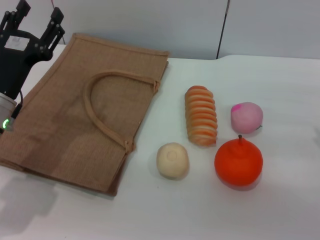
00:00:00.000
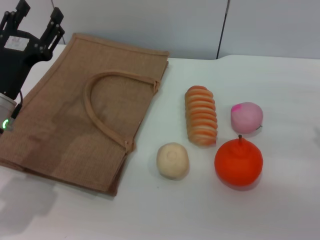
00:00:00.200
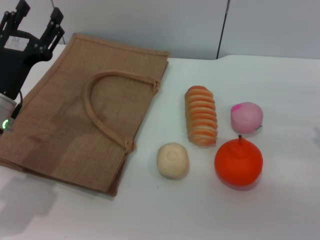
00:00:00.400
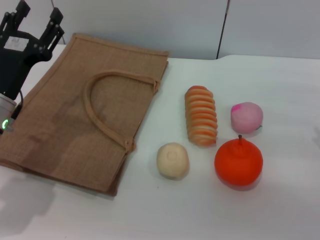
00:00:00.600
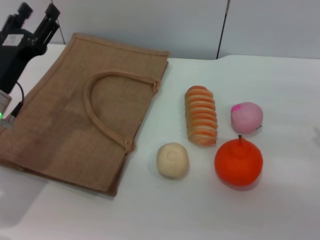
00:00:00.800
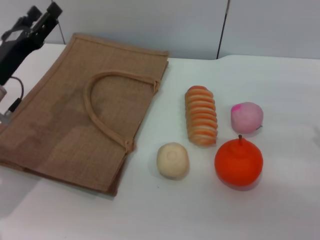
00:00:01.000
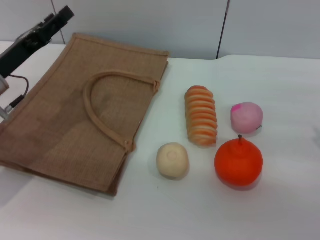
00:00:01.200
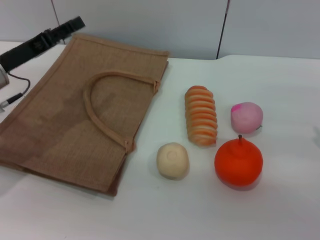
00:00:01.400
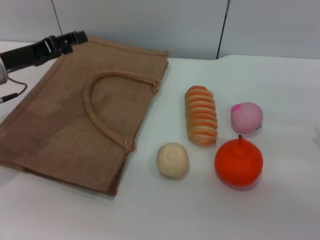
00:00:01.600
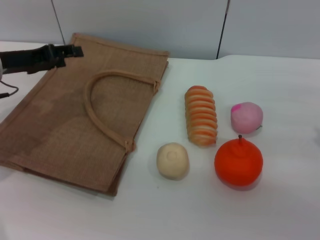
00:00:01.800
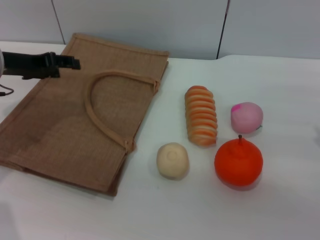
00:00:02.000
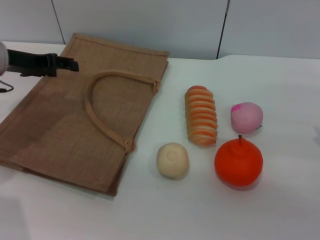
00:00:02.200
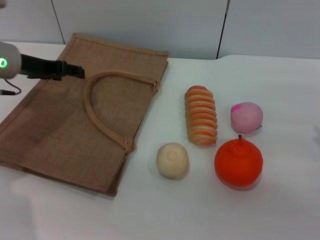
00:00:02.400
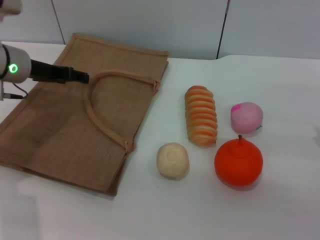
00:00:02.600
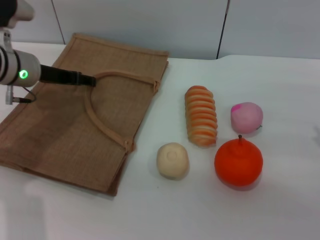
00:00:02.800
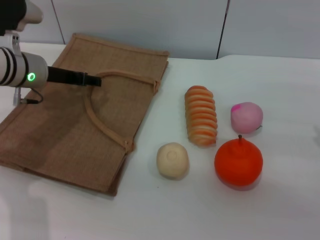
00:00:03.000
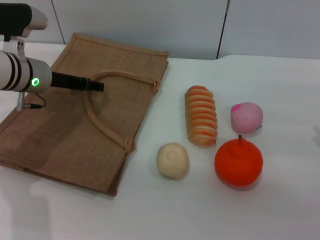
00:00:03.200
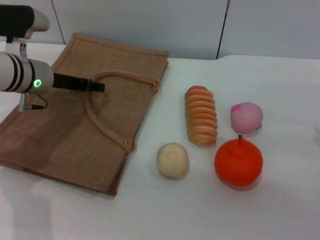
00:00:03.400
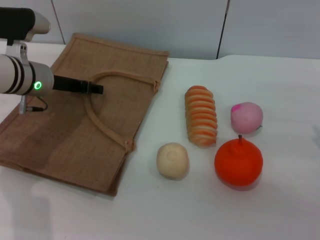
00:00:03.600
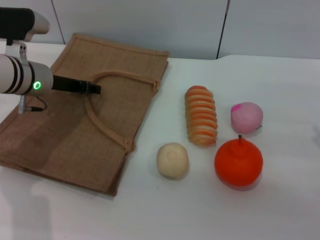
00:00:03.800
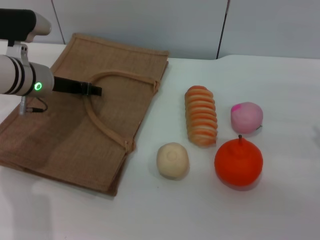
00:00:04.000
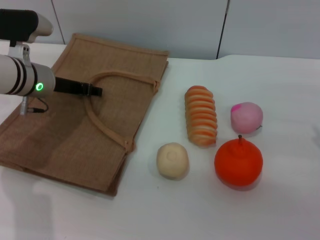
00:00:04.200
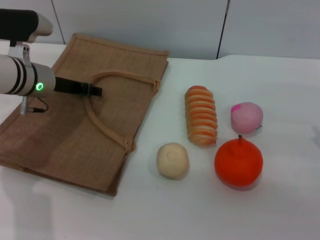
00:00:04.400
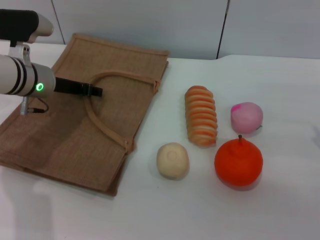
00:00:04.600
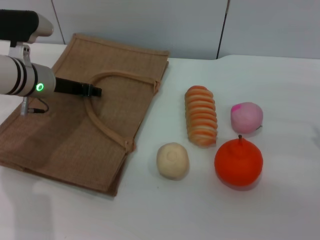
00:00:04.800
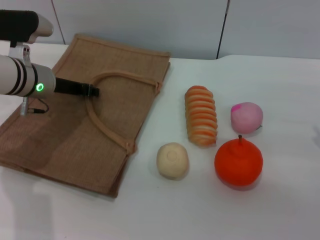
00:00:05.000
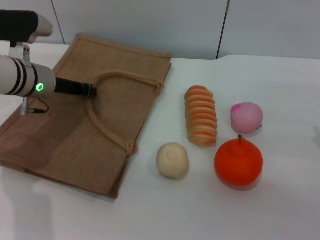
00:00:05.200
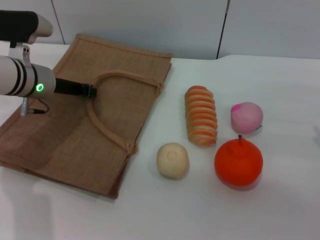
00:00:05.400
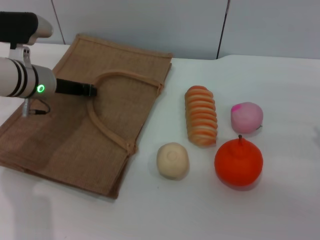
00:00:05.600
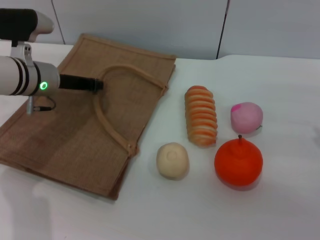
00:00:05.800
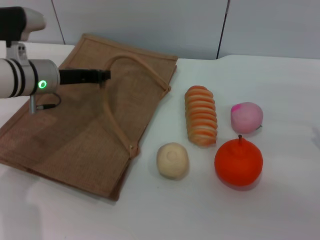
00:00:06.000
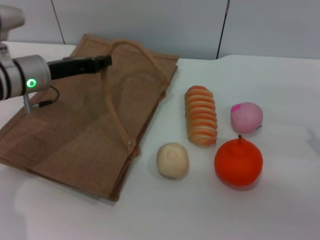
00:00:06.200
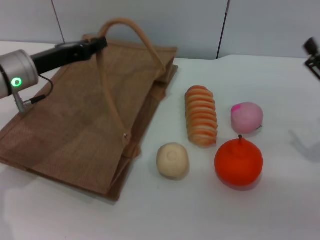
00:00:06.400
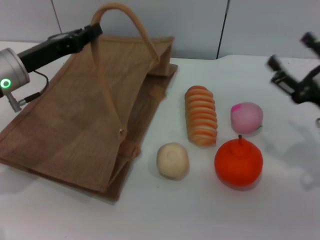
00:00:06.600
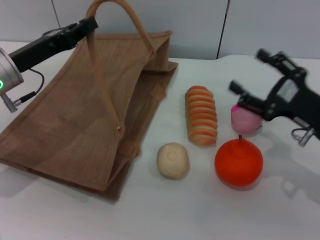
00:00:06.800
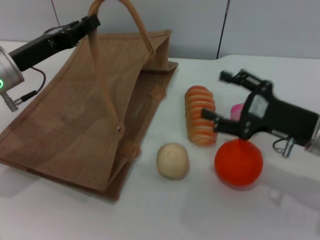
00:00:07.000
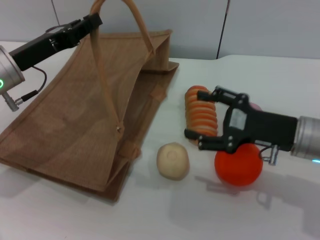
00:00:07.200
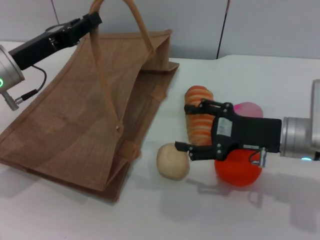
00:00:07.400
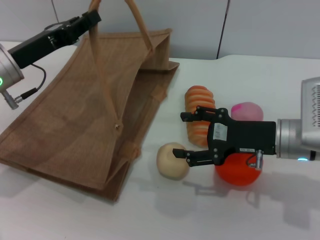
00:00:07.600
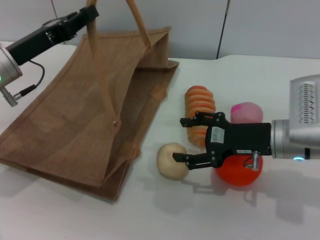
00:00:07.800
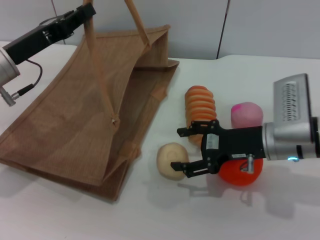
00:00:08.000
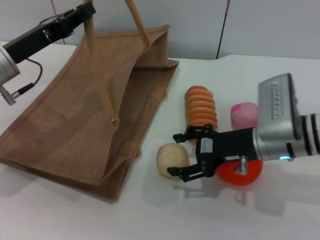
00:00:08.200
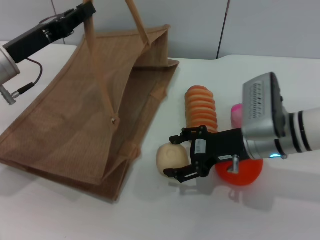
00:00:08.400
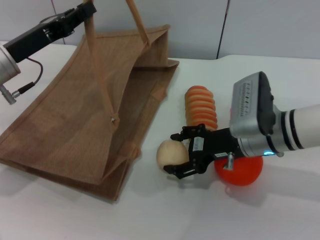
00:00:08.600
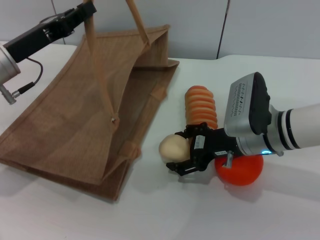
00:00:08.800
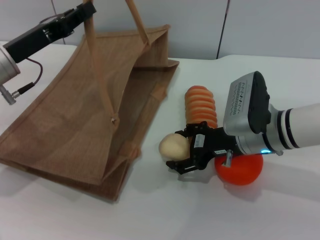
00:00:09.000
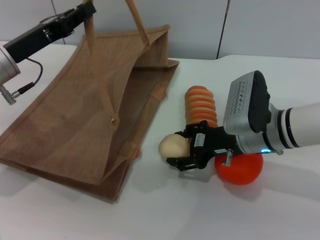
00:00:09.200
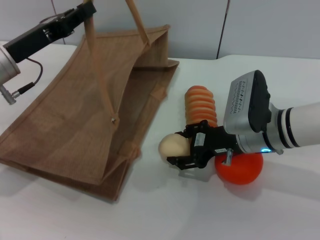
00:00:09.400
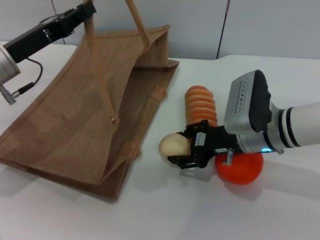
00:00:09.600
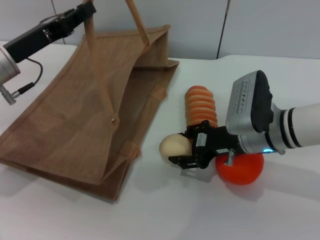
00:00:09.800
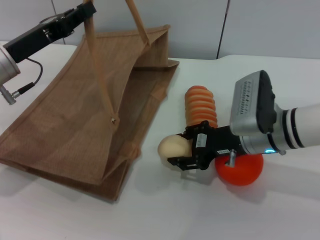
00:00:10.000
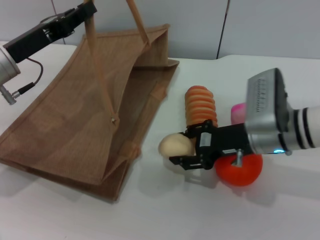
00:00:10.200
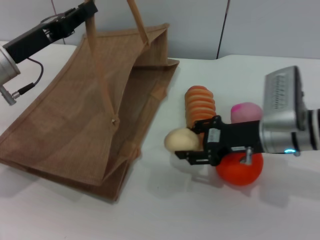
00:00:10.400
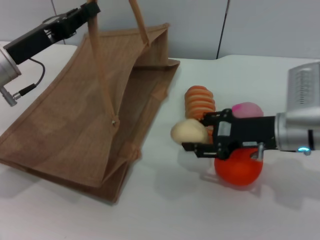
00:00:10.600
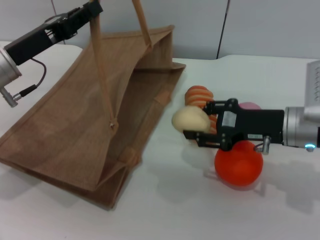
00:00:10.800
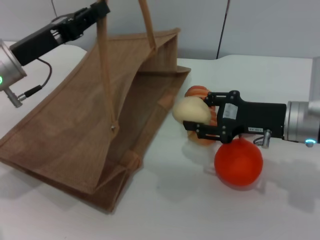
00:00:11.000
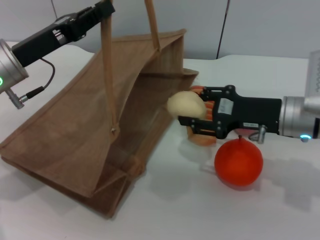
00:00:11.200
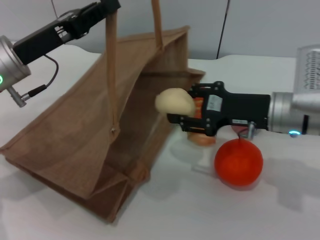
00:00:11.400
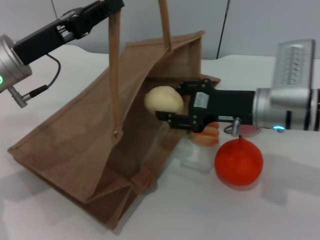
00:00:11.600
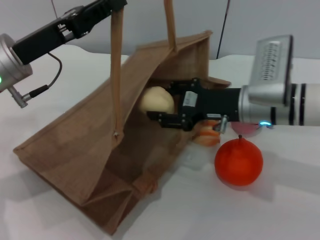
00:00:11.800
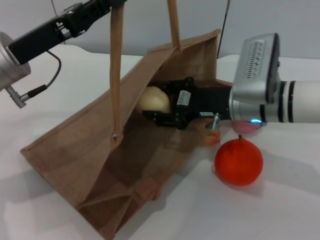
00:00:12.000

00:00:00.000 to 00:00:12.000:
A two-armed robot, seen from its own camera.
Task of the whole recording: pick up the egg yolk pastry from the table and place it in the brown handbag.
Step, 00:00:00.000 to 00:00:06.000: Lift the woven bag with the left gripper to open it.
Step, 00:00:06.200 to 00:00:10.600: Pick up the egg yolk pastry with the right gripper.
00:00:00.000 to 00:00:01.600: The left gripper travels forward by roughly 5 cm.
00:00:01.600 to 00:00:03.000: The left gripper is displaced to the right by about 5 cm.
00:00:03.000 to 00:00:04.400: The grippers stay close to where they were, moving slightly.
00:00:04.400 to 00:00:06.000: The left gripper closes up.
00:00:06.000 to 00:00:07.600: The left gripper is displaced backward by about 5 cm, while the right gripper goes roughly 10 cm to the left.
00:00:07.600 to 00:00:09.000: The right gripper moves some 5 cm.
00:00:09.000 to 00:00:10.400: The right gripper closes its fingers.
00:00:10.400 to 00:00:12.000: The right gripper moves to the left, about 5 cm.

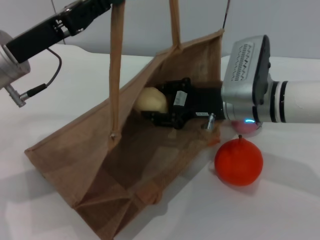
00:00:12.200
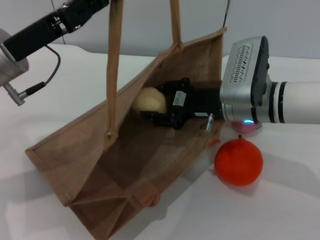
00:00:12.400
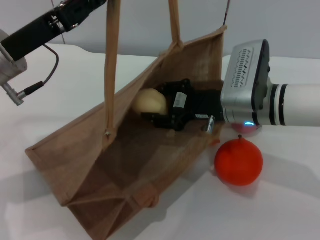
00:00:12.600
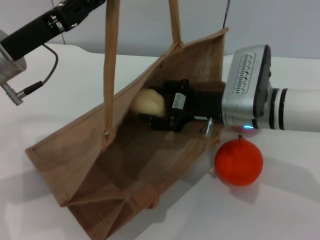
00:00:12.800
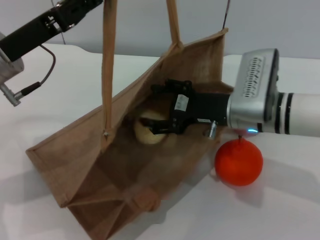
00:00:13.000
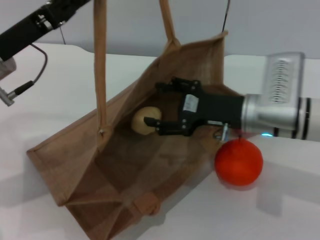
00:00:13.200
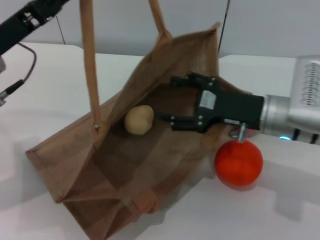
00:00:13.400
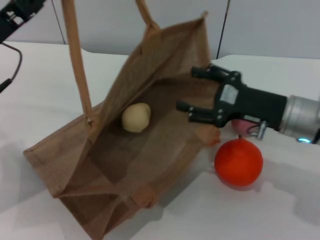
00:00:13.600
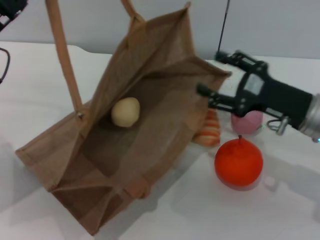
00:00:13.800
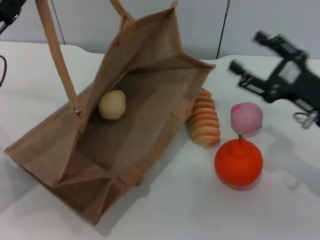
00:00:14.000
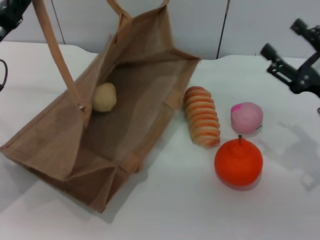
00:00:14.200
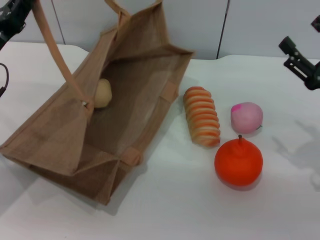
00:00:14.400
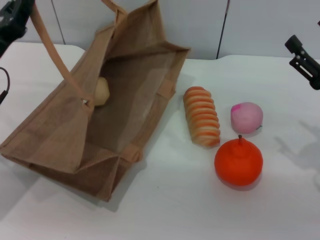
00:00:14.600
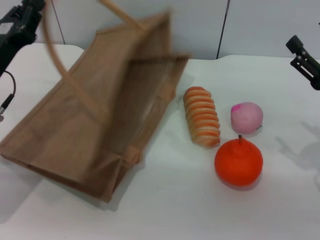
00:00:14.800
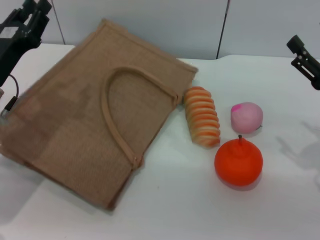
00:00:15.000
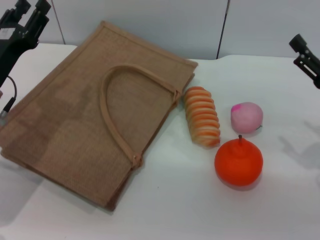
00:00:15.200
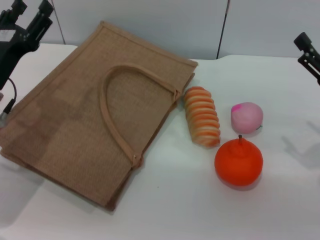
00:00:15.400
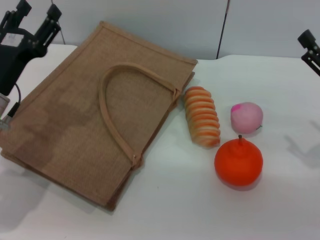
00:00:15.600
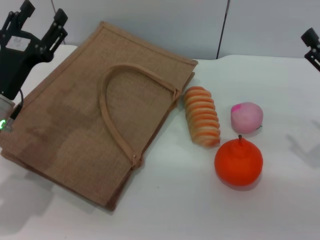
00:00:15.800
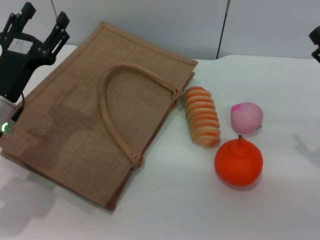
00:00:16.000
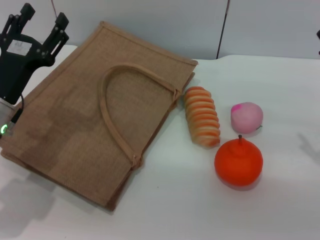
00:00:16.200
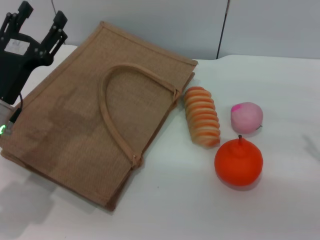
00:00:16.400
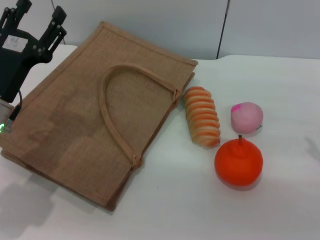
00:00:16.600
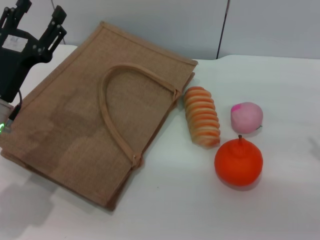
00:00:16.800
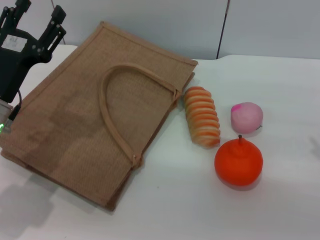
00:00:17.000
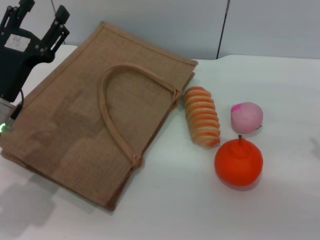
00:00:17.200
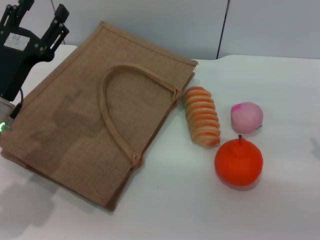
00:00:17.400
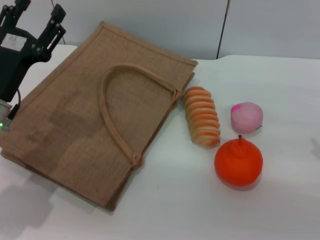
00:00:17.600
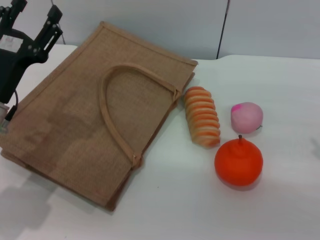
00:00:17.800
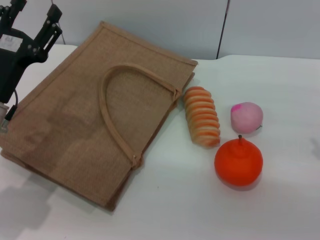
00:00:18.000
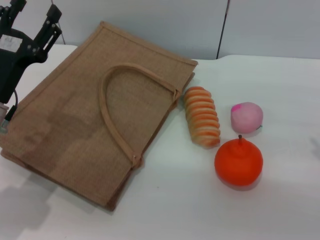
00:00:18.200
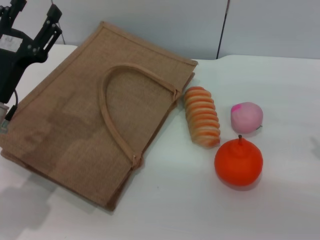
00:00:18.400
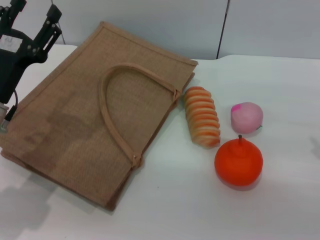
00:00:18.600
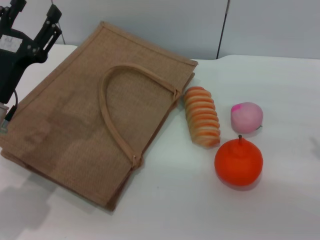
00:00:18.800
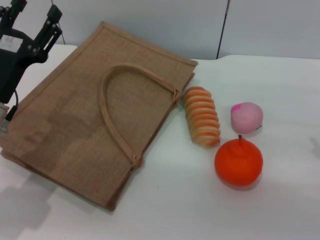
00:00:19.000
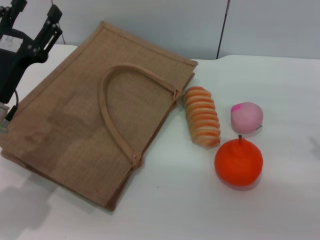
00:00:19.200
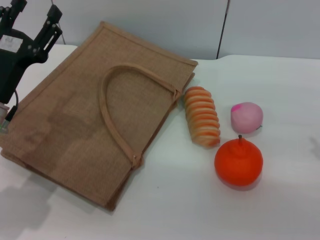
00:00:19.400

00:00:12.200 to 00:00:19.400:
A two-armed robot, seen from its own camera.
Task of the whole recording: pick up the egg yolk pastry from the table and place it in the brown handbag.
Step, 00:00:12.200 to 00:00:14.000: Place the egg yolk pastry into the woven bag with the right gripper.
Step, 00:00:14.200 to 00:00:15.200: Lower the woven bag with the left gripper to close it.
00:00:12.200 to 00:00:13.600: The right gripper shifts approximately 10 cm to the right, and opens.
00:00:13.600 to 00:00:15.000: The left gripper goes some 5 cm downward. Meanwhile the right gripper goes roughly 10 cm to the right.
00:00:15.000 to 00:00:16.600: The left gripper opens its fingers.
00:00:16.600 to 00:00:19.400: Both grippers stay about where they are.
